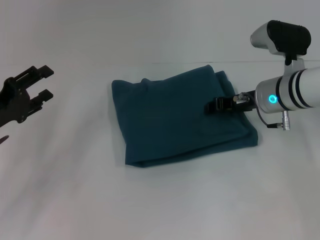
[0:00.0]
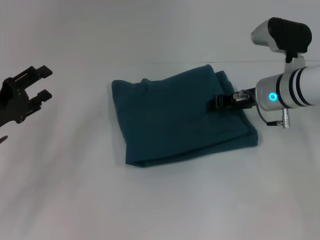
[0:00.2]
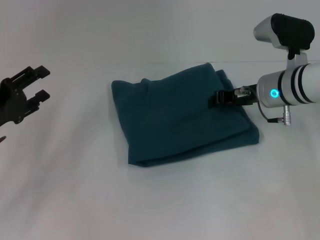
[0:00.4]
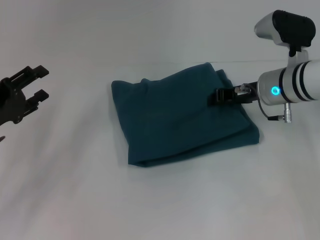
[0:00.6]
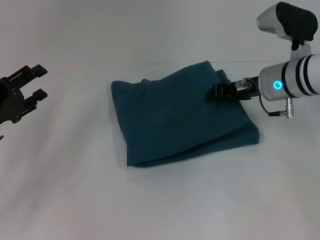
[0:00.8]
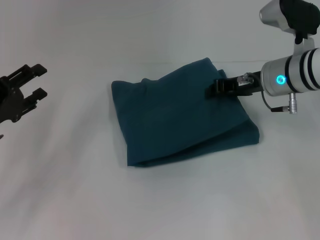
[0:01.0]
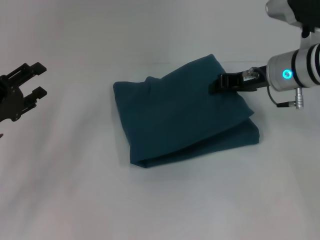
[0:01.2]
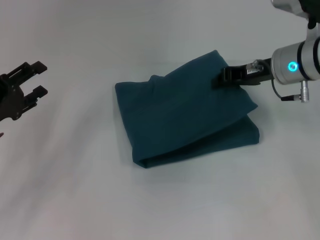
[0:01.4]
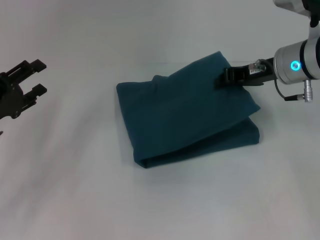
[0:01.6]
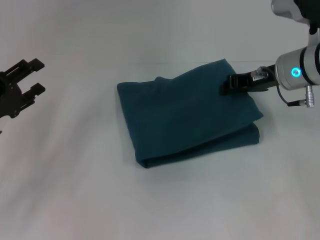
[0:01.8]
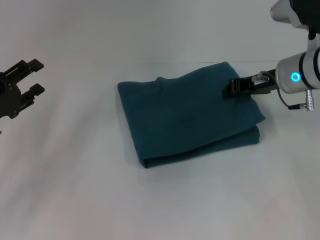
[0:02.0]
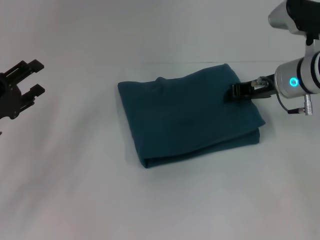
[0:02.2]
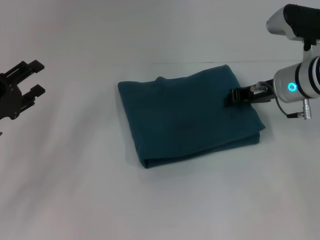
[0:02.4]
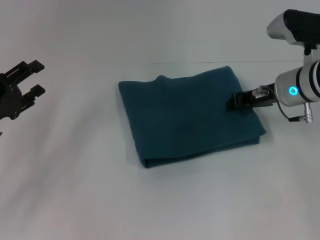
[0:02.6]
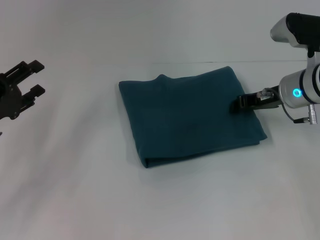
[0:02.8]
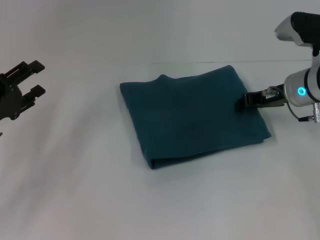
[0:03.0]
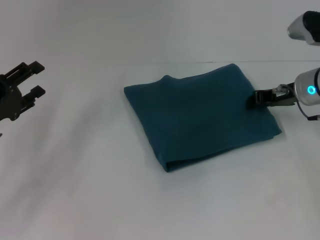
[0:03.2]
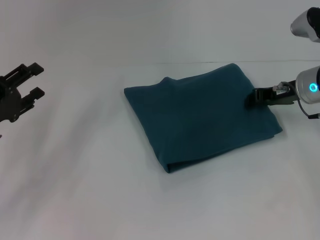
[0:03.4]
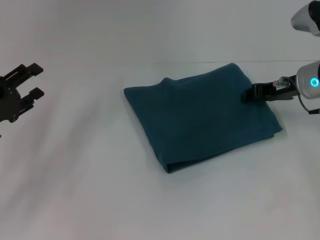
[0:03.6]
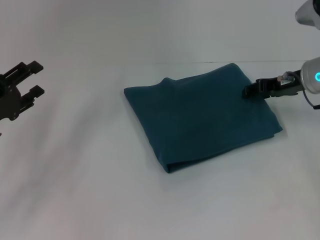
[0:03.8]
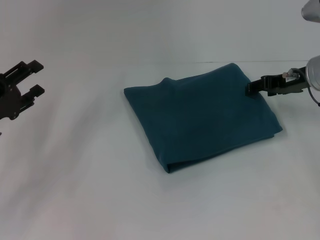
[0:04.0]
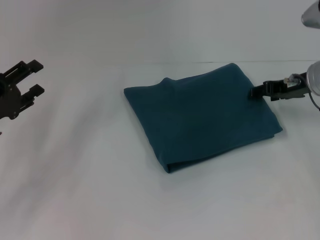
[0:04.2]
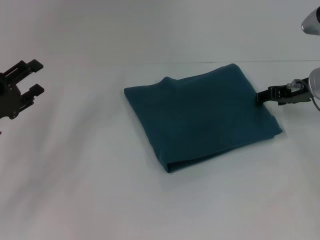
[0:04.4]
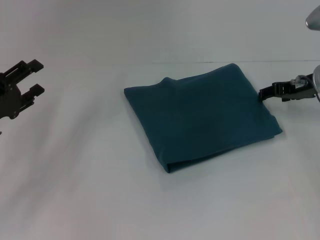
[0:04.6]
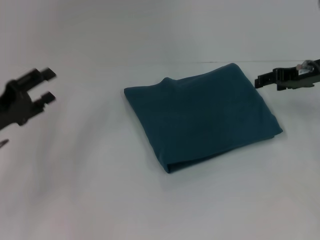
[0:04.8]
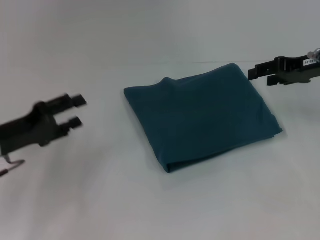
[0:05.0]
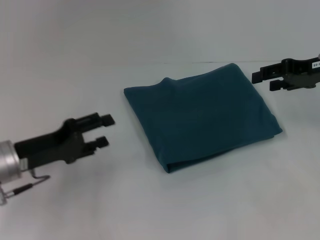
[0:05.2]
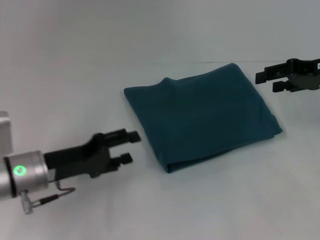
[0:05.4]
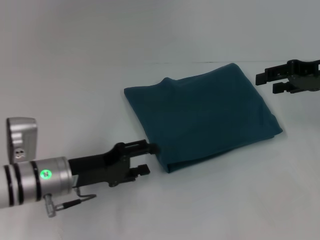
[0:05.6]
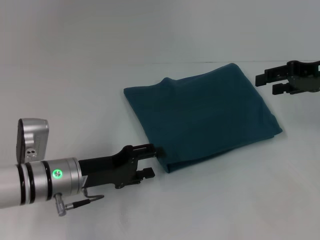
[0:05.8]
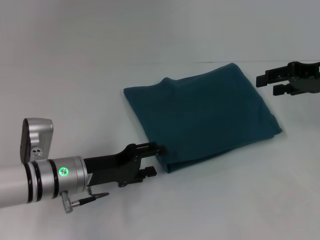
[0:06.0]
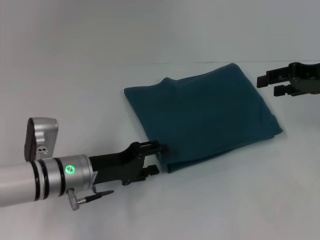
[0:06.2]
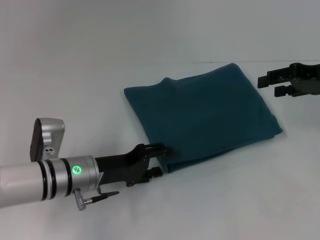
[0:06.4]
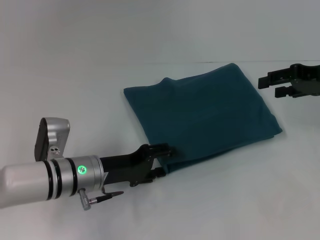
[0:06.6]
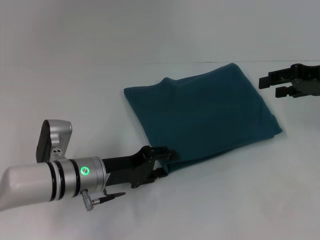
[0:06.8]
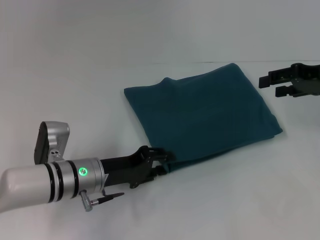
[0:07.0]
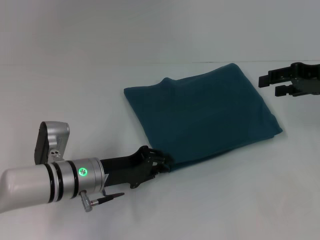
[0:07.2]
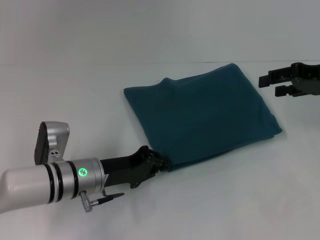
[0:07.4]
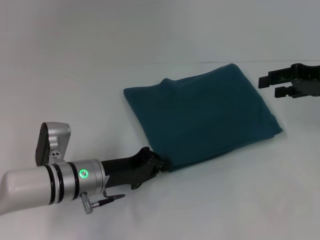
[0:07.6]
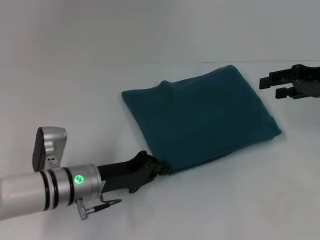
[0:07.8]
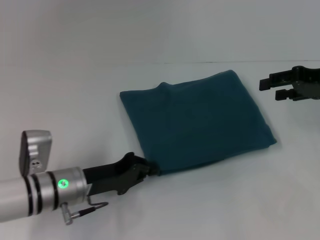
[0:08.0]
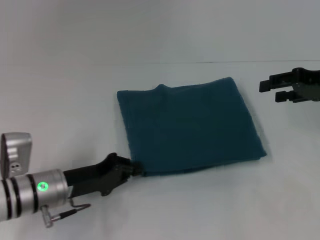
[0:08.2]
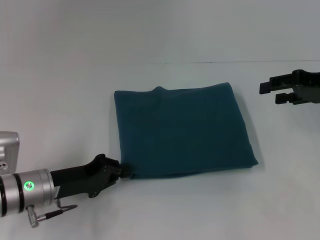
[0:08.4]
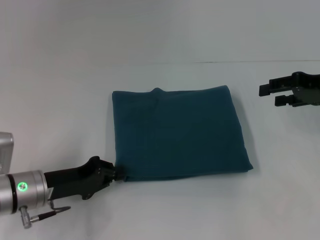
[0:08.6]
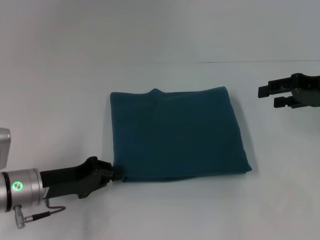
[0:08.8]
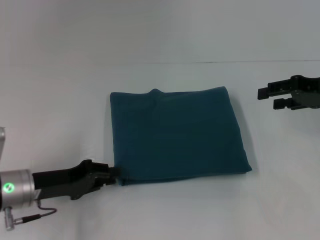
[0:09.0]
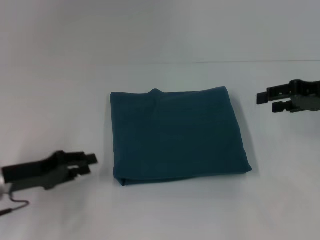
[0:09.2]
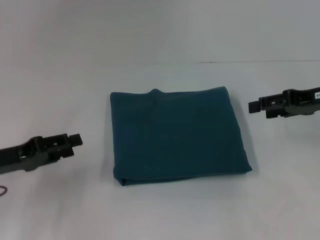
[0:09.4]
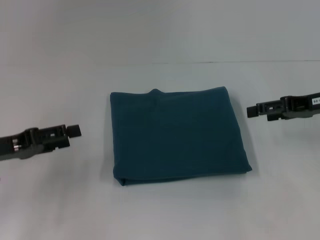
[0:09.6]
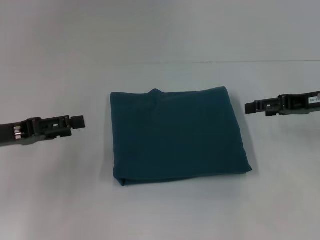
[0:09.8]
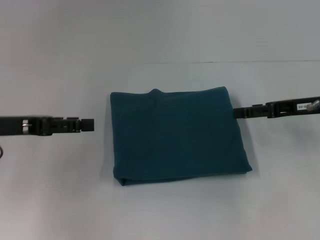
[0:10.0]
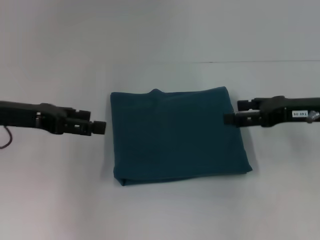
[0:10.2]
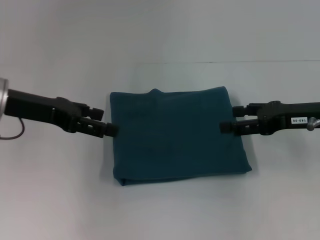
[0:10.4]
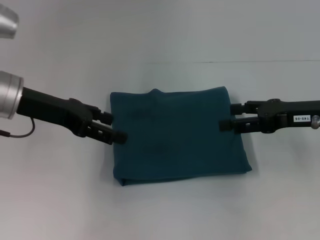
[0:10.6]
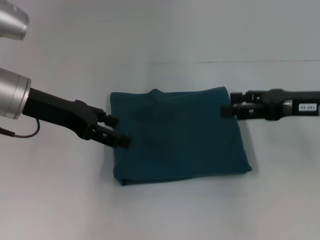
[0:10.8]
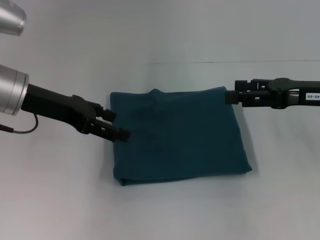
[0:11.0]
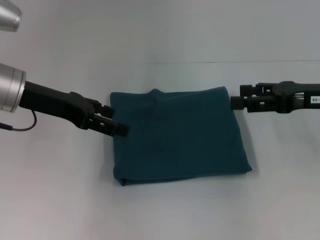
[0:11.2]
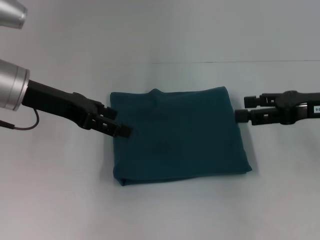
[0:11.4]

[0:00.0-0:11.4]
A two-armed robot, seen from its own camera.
0:00.0 to 0:01.4: The right gripper goes some 5 cm upward.
0:01.4 to 0:02.8: The grippers move only a little.
0:02.8 to 0:04.2: The right gripper opens up.
0:04.2 to 0:05.6: The left gripper goes about 10 cm to the right. Meanwhile the right gripper shifts about 5 cm upward.
0:05.6 to 0:07.2: The left gripper shifts by about 5 cm, and closes.
0:07.2 to 0:08.6: The left gripper shifts some 10 cm to the left.
0:08.6 to 0:10.0: The left gripper goes approximately 15 cm upward and to the left, and opens.
0:10.0 to 0:11.4: The left gripper is displaced to the right and forward by about 10 cm.

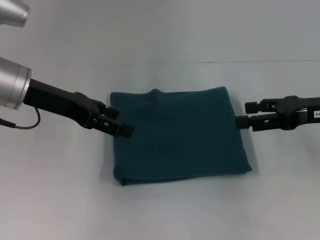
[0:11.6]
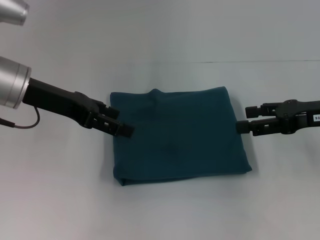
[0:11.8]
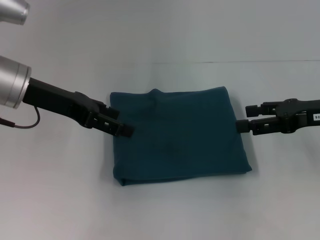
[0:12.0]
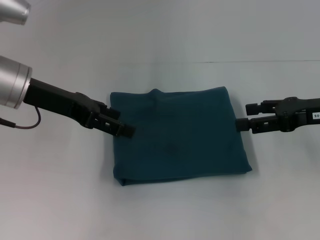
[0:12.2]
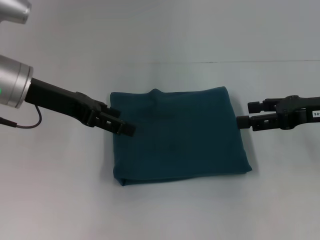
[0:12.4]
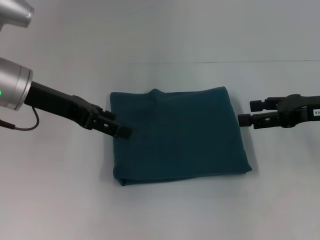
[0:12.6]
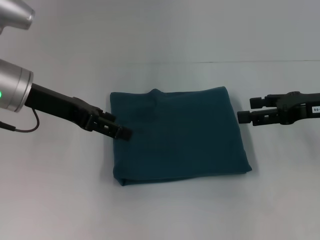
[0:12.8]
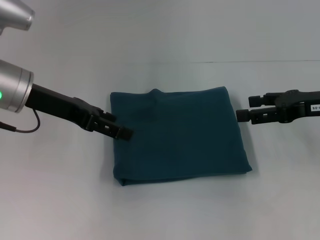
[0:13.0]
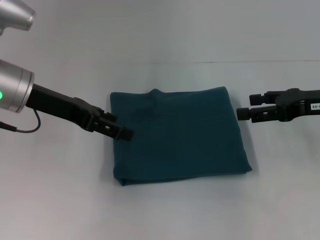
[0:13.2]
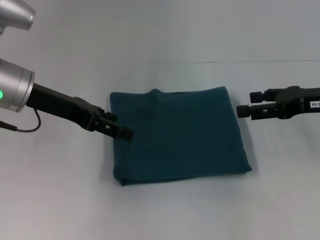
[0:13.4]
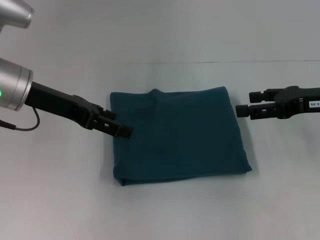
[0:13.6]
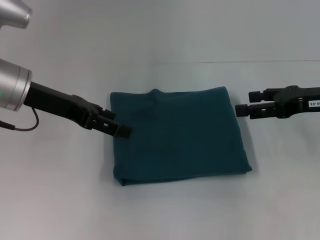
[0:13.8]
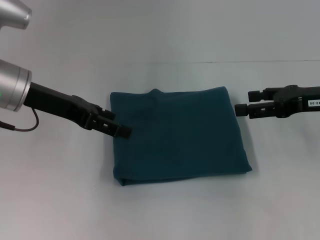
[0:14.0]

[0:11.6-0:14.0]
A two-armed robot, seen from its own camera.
0:11.6 to 0:12.8: The grippers stay close to where they were, moving slightly.
0:12.8 to 0:14.0: Both grippers stay about where they are.

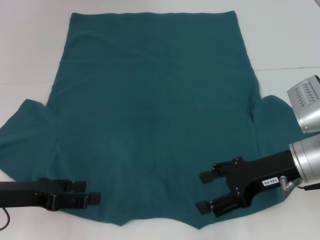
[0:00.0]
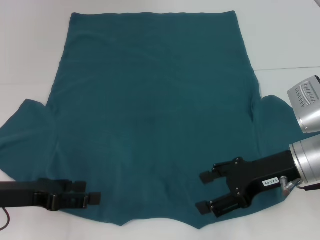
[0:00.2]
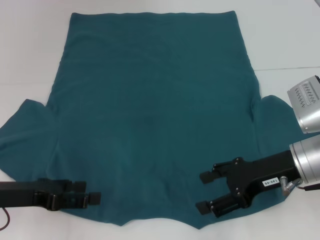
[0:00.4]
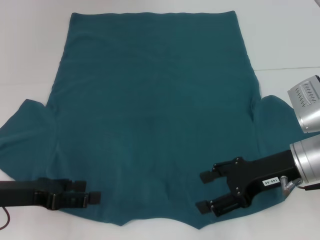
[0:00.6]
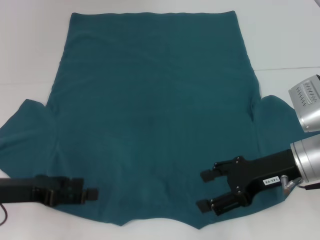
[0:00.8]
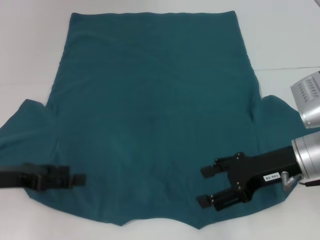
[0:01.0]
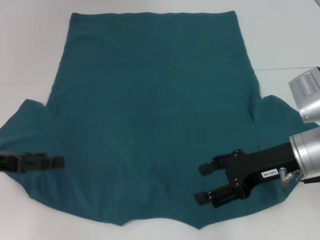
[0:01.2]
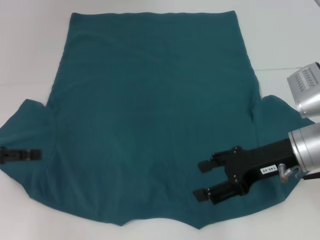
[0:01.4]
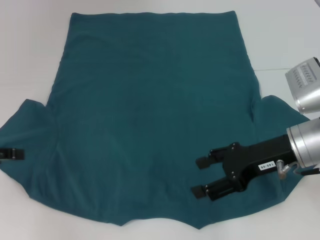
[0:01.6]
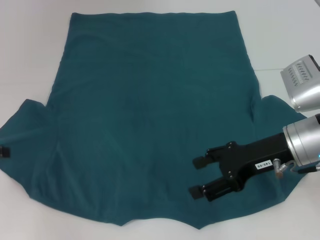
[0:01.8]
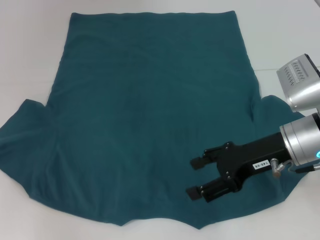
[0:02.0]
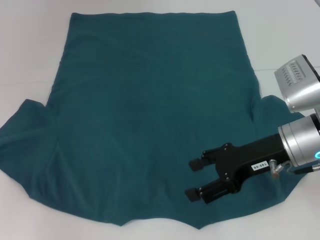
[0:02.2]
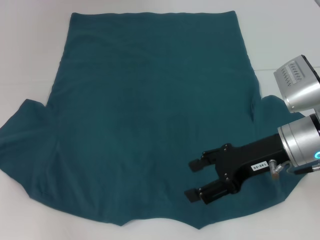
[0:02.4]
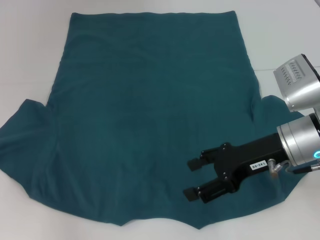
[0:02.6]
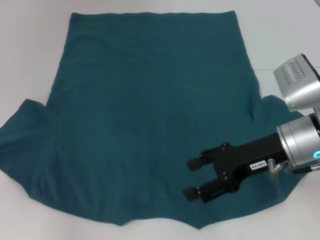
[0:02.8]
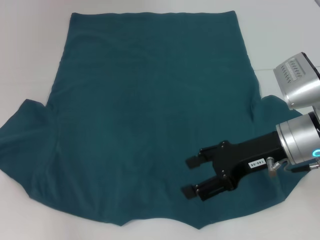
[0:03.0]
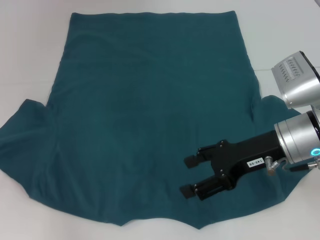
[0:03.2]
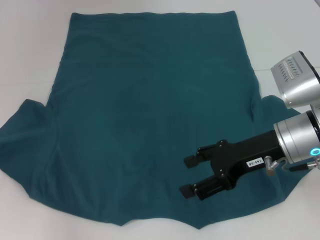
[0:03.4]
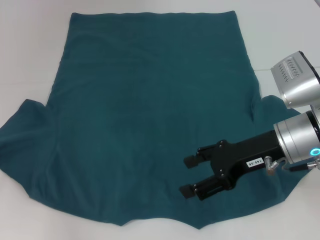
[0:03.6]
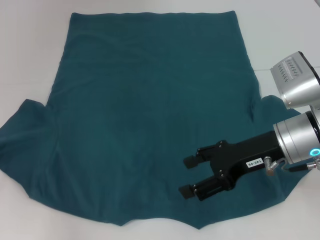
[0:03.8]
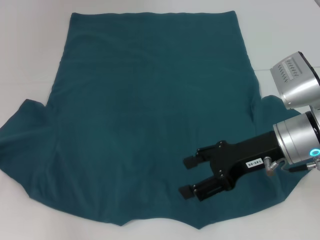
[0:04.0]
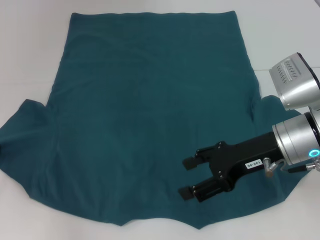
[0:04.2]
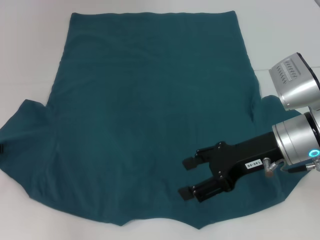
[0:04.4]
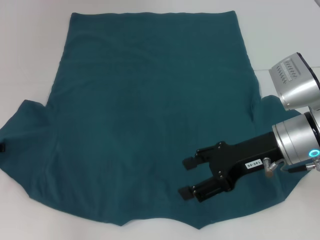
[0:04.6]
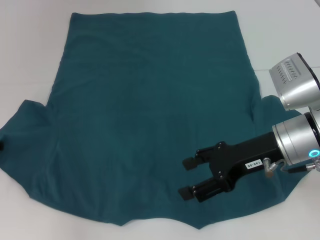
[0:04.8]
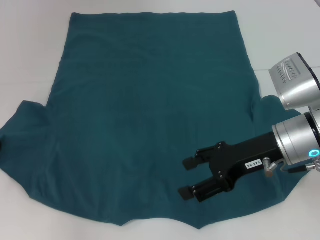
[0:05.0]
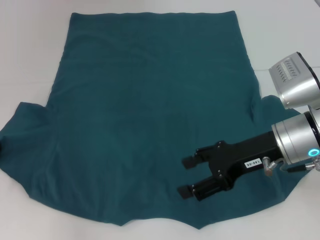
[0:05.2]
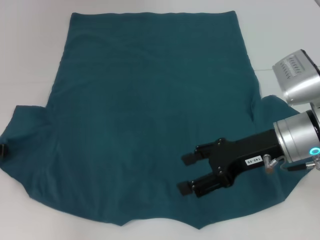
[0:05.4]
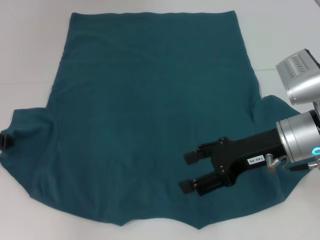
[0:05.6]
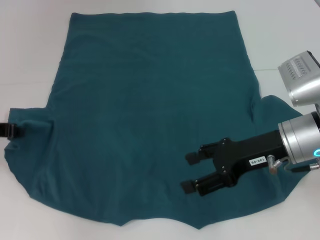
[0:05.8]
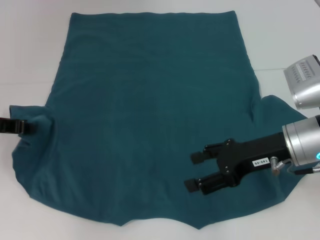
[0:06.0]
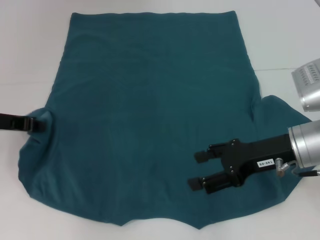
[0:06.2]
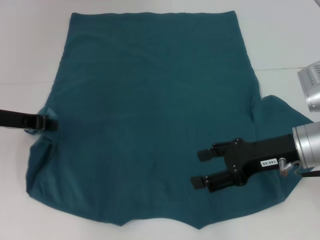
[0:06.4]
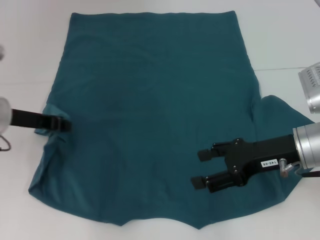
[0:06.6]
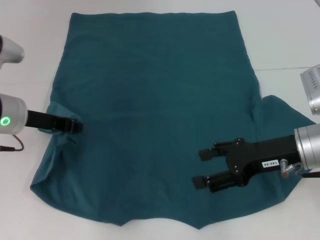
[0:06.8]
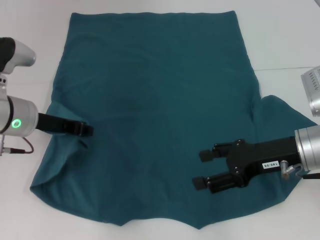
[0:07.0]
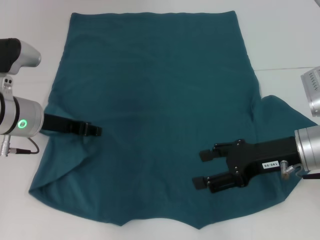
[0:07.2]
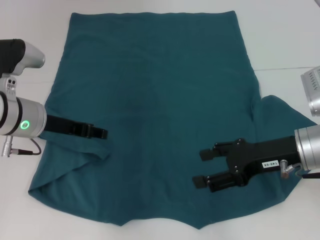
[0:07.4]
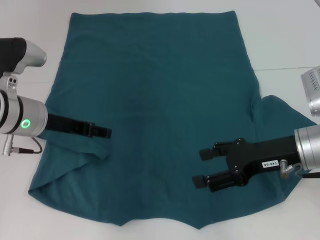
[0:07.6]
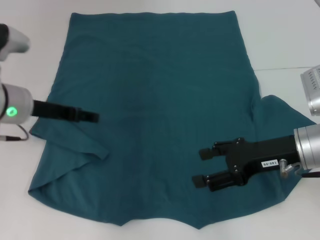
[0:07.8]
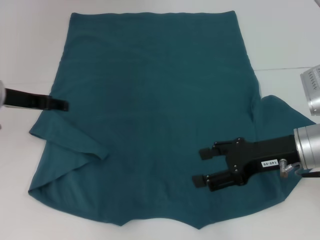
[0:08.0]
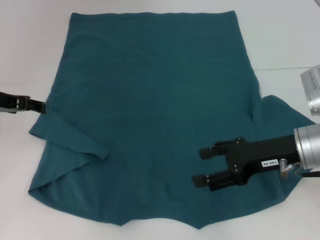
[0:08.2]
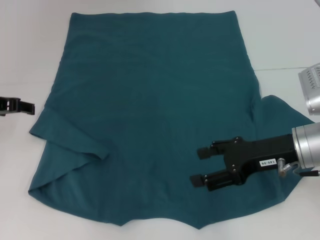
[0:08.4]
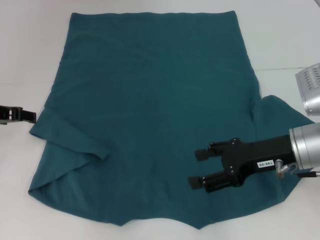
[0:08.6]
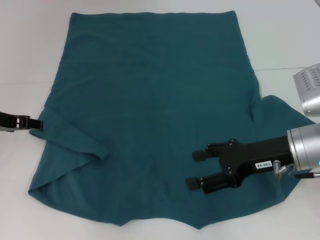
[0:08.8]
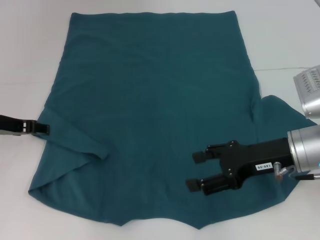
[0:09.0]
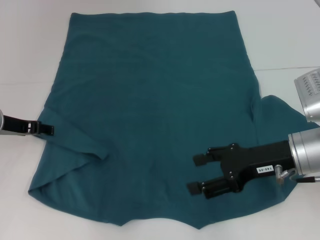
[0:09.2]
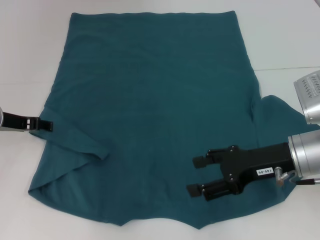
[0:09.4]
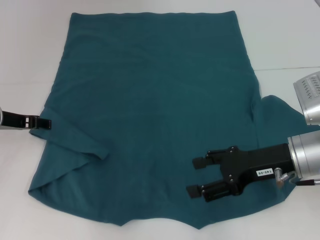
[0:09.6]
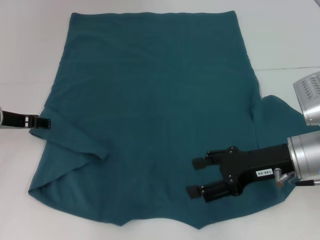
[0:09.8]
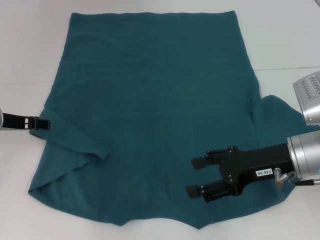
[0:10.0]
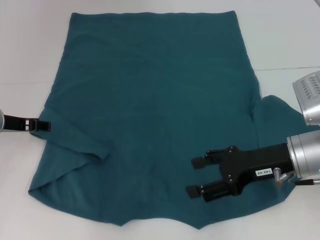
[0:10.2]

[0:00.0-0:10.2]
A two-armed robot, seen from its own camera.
0:00.0 to 0:01.4: The left gripper is displaced to the left and upward by some 10 cm.
0:01.4 to 0:03.0: The left gripper shifts by some 5 cm.
0:03.0 to 0:04.4: The grippers stay close to where they were, moving slightly.
0:04.4 to 0:05.8: The left gripper is displaced upward by about 5 cm, and closes.
0:05.8 to 0:07.2: The left gripper goes roughly 10 cm to the right.
0:07.2 to 0:08.8: The left gripper is displaced to the left by roughly 5 cm, and opens.
0:08.8 to 0:10.2: There are only small adjustments of the grippers.
